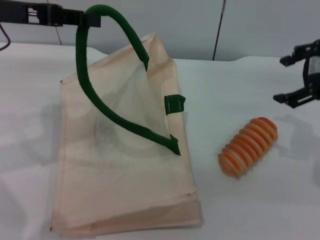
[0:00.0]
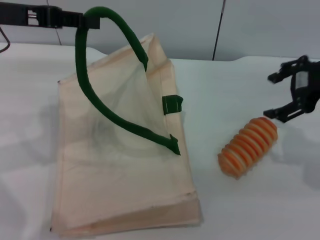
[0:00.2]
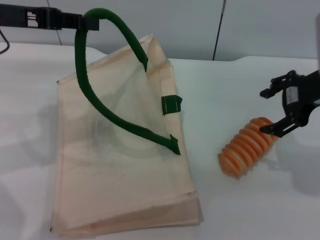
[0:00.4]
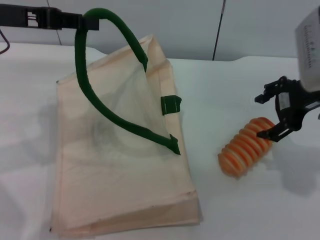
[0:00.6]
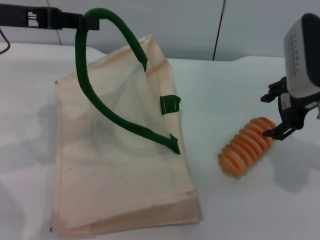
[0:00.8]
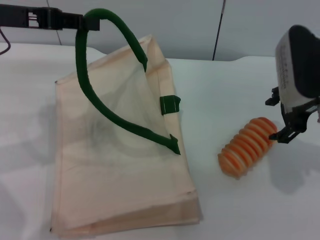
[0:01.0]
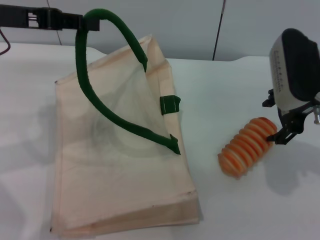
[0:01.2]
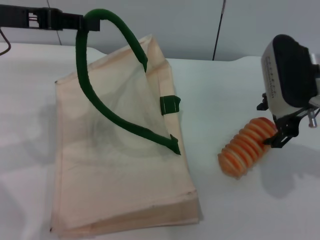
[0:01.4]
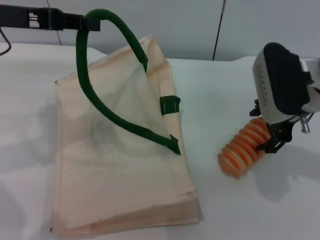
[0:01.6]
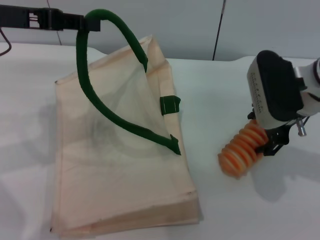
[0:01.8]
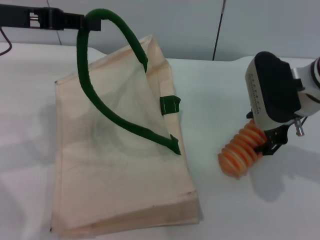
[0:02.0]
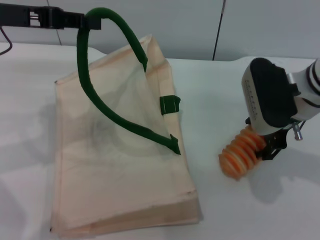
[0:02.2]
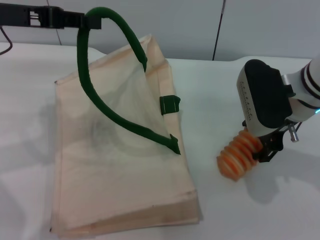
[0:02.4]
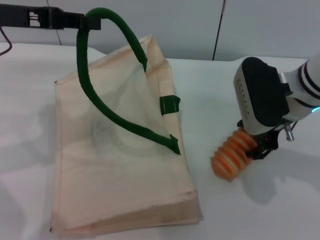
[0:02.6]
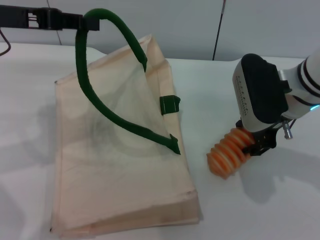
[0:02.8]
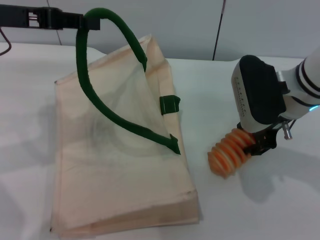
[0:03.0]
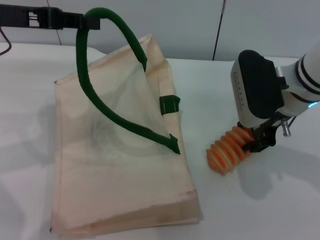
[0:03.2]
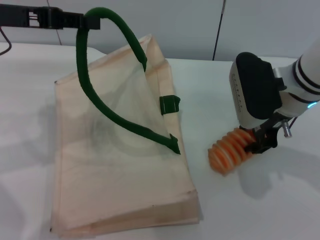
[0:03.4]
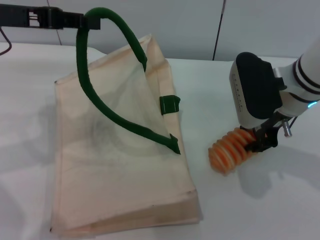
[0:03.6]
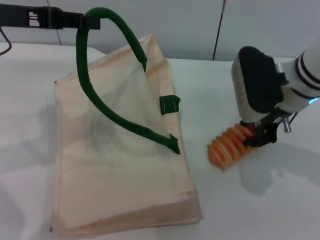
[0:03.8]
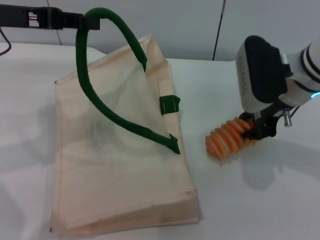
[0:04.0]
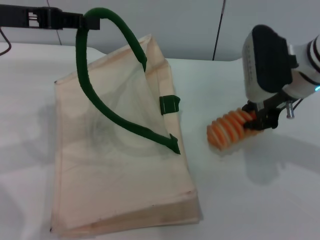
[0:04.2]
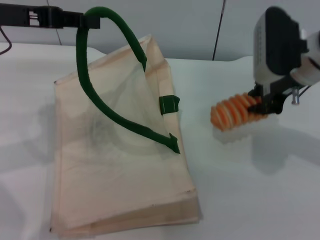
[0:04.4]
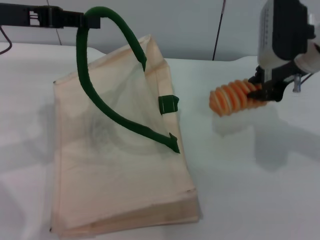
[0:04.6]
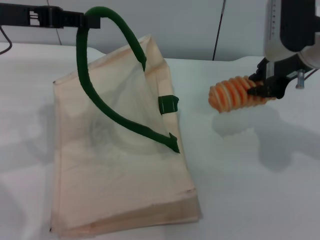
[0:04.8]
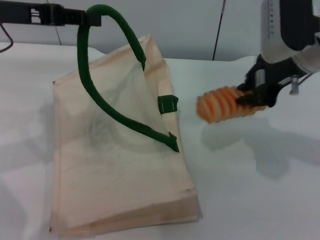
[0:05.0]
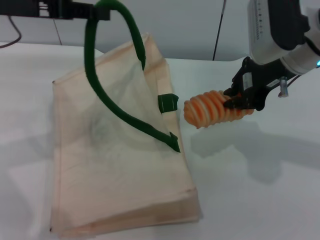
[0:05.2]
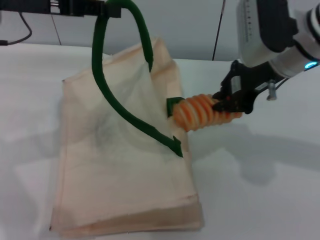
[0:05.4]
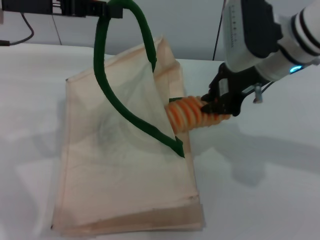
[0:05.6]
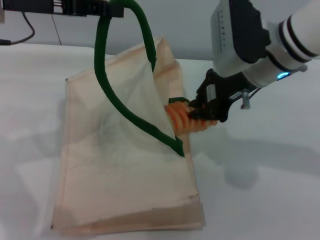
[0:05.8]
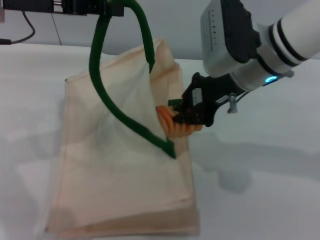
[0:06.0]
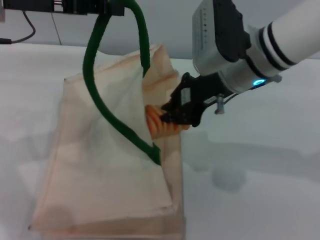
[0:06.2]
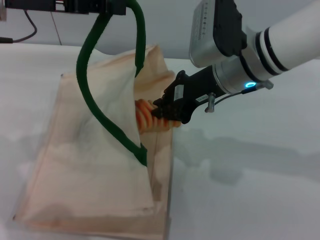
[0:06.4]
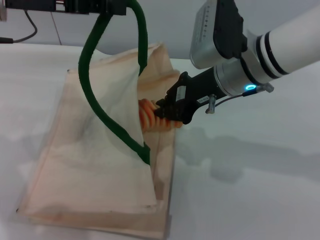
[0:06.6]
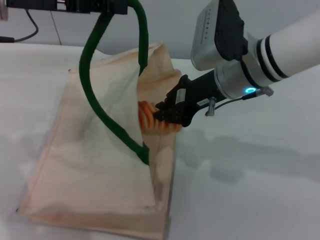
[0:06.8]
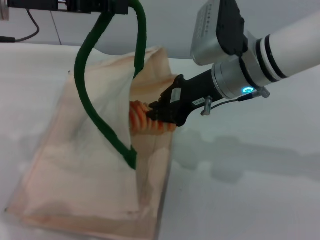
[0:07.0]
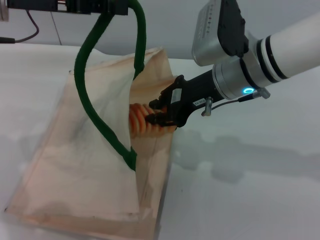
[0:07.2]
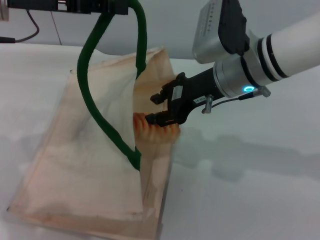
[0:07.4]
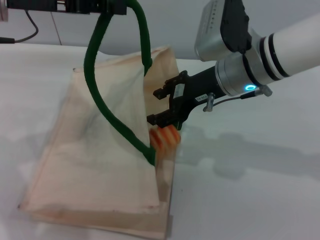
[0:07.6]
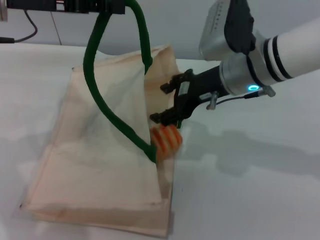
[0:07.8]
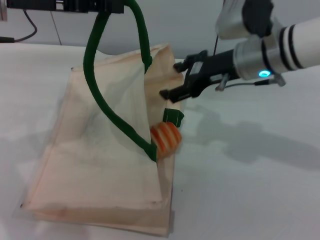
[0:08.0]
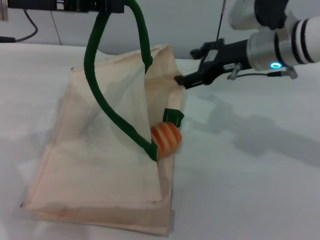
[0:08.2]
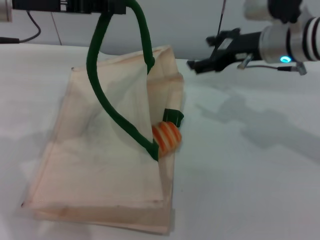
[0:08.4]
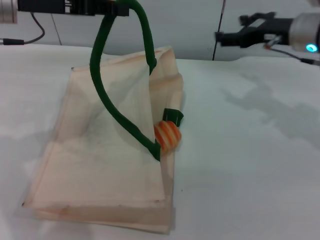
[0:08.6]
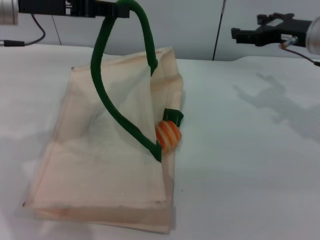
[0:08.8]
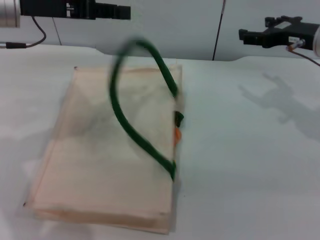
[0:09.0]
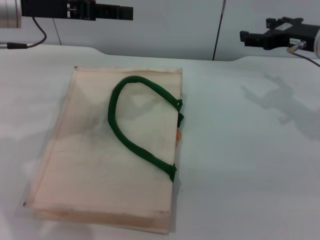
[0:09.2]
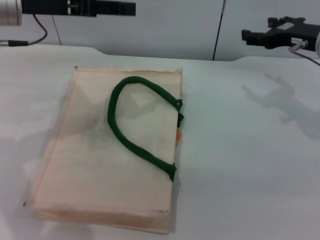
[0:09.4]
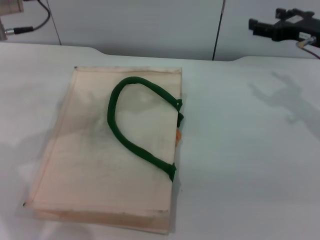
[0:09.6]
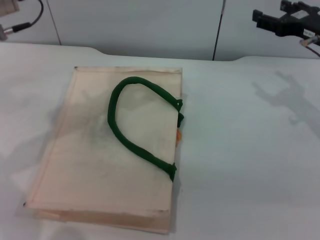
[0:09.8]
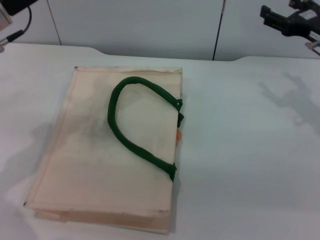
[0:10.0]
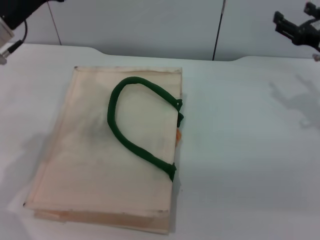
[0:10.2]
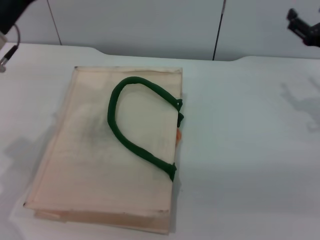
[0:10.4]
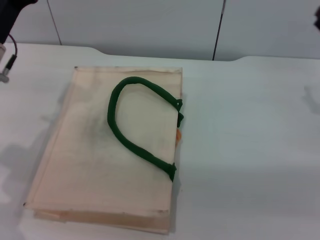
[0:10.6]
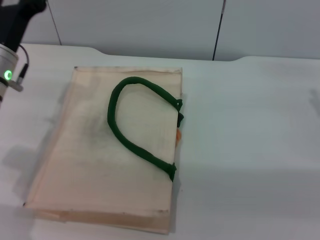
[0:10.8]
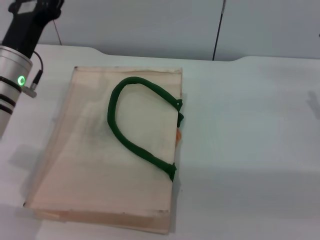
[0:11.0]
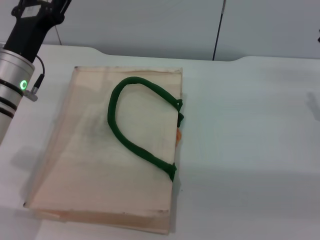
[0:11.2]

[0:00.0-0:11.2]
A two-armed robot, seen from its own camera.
Task of the whole recording: pick up the bread from the table and place it in the white handbag.
Step, 0:00.0 to 0:04.2: Pick up the bread with the right gripper.
Step, 0:04.4 to 0:08.0: Place the bread into the woven bag with the right gripper.
Step, 0:08.2 to 0:10.2: Lower the woven bag with the left gripper to close it.
0:00.0 to 0:01.6: The right gripper travels to the left and downward by approximately 10 cm.
0:01.6 to 0:03.2: The grippers stay close to where they were, moving slightly.
0:03.2 to 0:04.8: The right gripper ends up some 5 cm from where it was, and closes.
0:04.8 to 0:06.4: The right gripper heads to the left, covering some 10 cm.
0:06.4 to 0:08.0: The right gripper opens.
0:08.0 to 0:09.6: The left gripper opens its fingers. The right gripper heads to the right, covering about 15 cm.
0:09.6 to 0:11.2: The left gripper moves downward and backward, about 15 cm. The right gripper heads backward and downward, covering approximately 10 cm.
